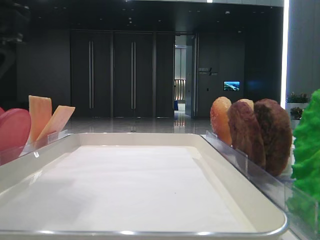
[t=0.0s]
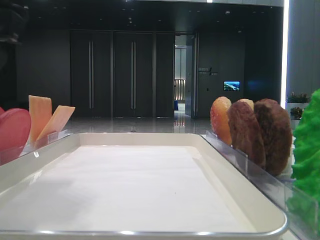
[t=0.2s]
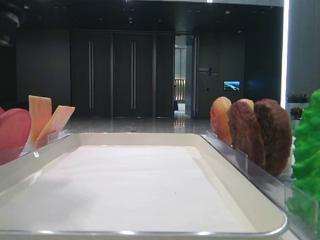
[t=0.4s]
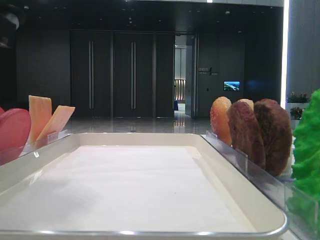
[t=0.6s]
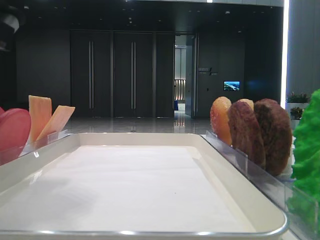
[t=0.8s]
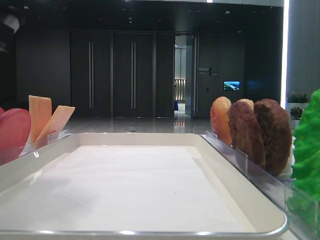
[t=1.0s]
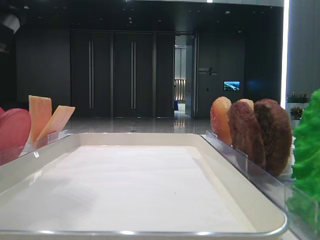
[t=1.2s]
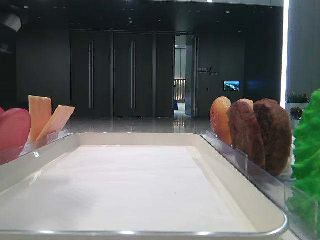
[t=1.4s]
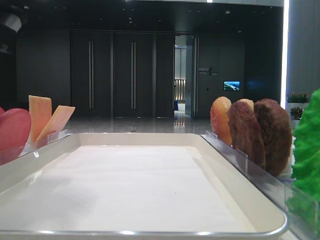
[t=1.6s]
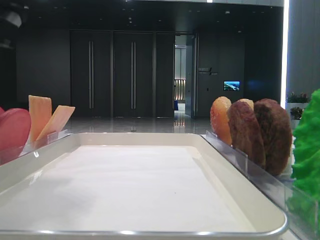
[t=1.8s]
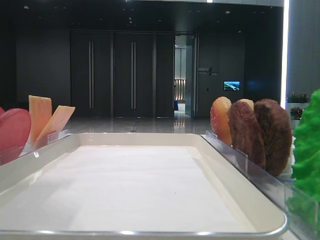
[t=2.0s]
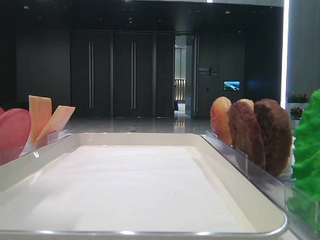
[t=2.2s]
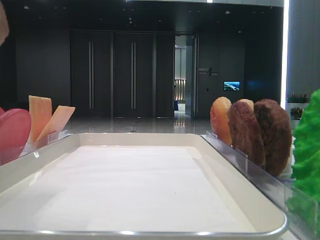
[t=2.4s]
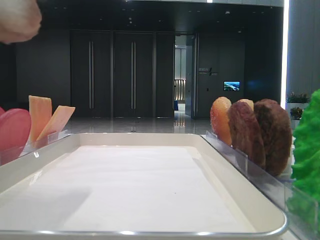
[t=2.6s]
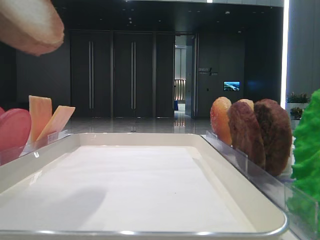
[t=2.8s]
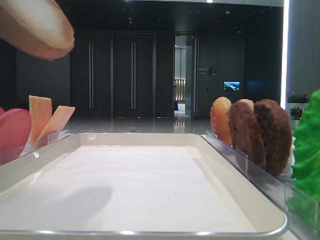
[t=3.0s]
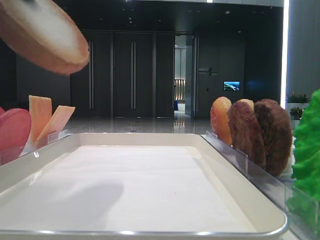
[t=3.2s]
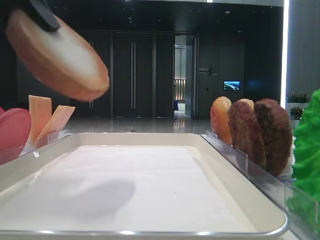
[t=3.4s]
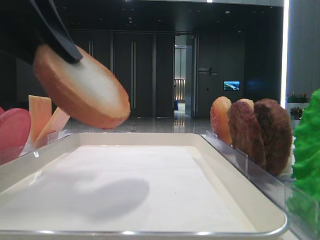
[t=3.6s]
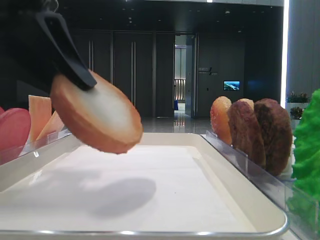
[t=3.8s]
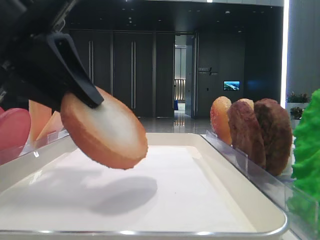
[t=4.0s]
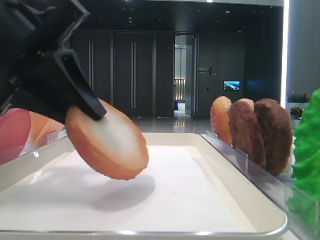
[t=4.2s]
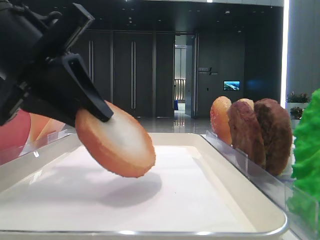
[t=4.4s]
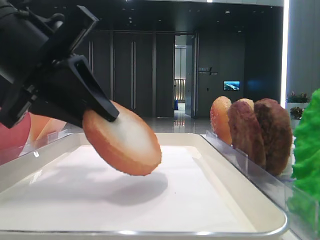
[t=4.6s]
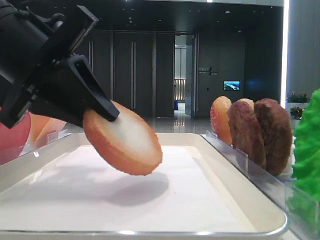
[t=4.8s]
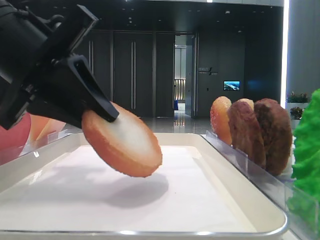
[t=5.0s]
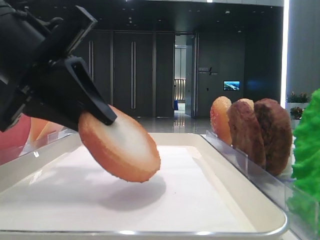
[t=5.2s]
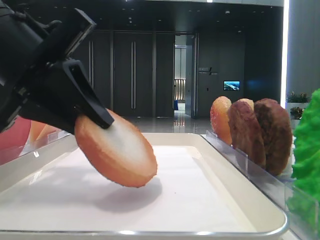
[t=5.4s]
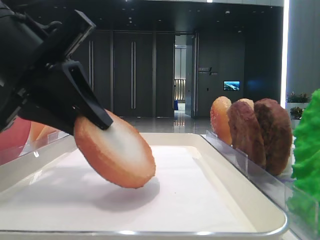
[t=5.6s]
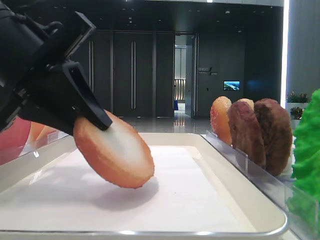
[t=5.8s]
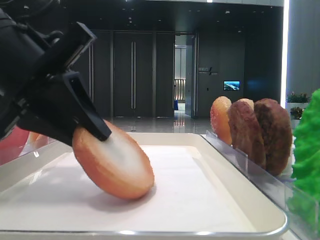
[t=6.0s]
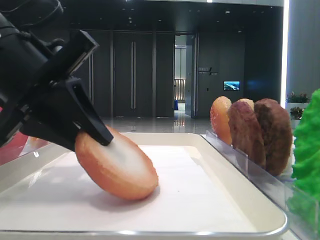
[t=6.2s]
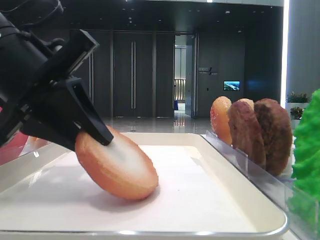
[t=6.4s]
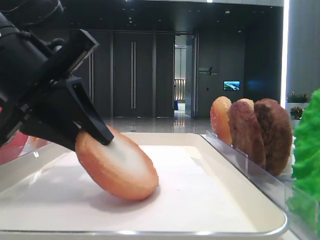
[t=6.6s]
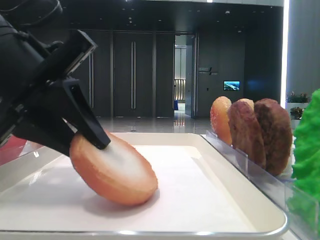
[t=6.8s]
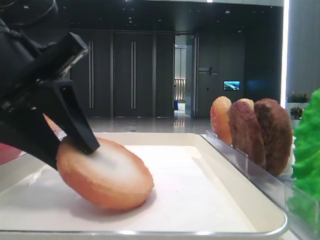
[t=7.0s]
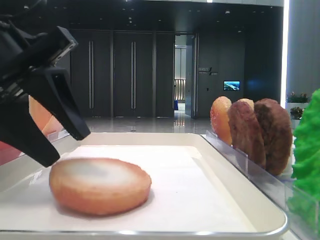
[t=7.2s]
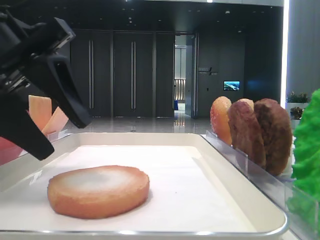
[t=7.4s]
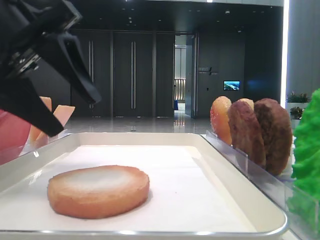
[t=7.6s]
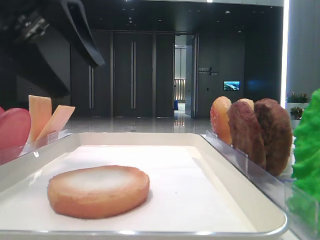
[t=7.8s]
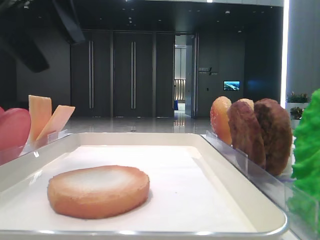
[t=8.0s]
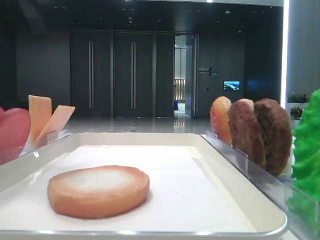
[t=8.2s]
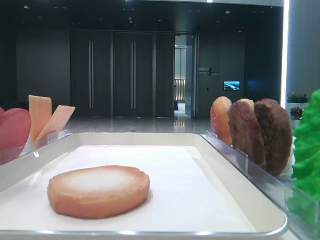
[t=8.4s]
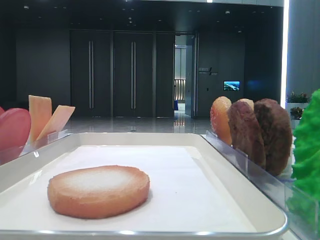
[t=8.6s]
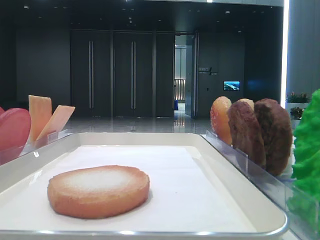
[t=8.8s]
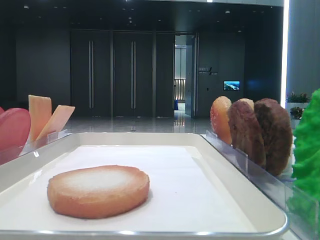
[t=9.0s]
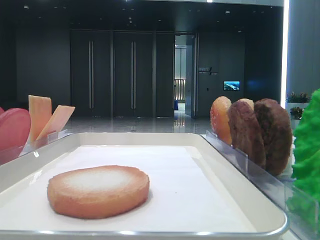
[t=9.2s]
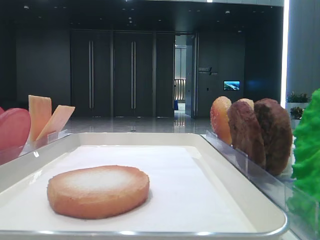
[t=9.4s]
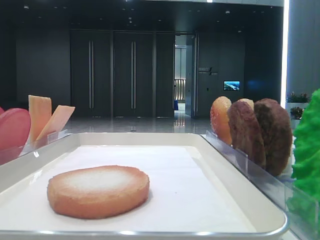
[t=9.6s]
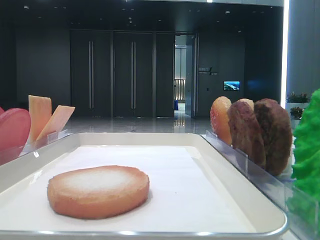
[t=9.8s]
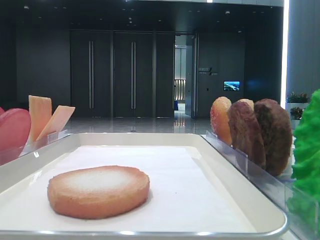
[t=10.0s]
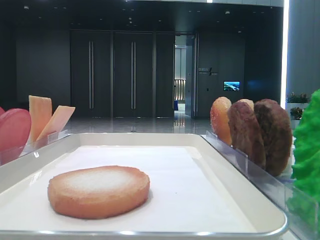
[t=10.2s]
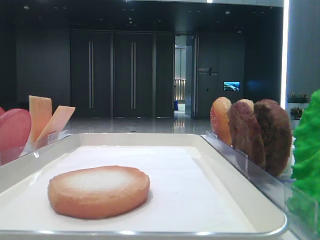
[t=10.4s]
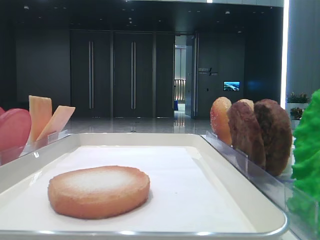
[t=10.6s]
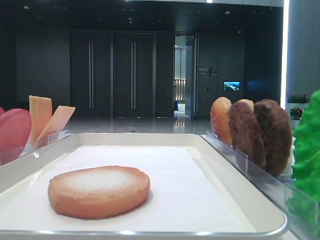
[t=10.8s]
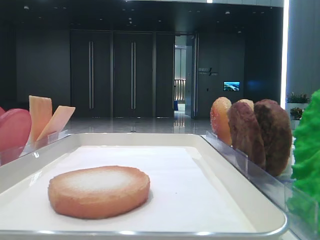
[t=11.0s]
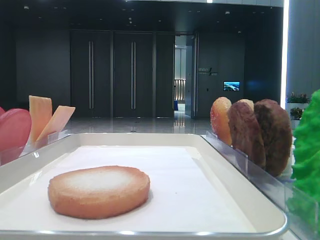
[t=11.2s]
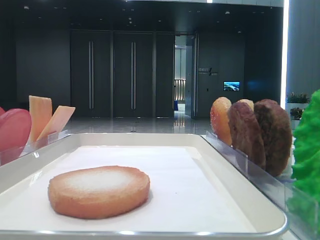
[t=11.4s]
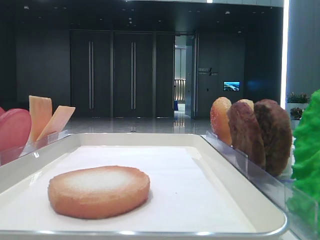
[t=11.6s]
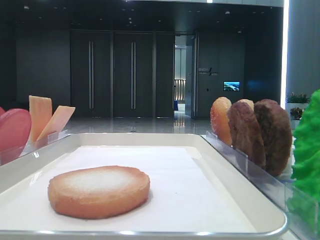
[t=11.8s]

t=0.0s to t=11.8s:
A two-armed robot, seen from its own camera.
Step, t=1.0s to t=7.2s: Place the bread on the tray with the left hand.
t=1.4s to t=3.0s: The left gripper travels upward by approximately 10 cm.
t=3.0s to t=4.4s: The left gripper goes roughly 15 cm downward and forward.
t=4.4s to t=6.0s: The grippers move only a little.
t=6.0s to t=7.4s: The left gripper opens up.
t=7.4s to t=8.8s: The left gripper is displaced to the left and upward by roughly 20 cm.
t=10.4s to t=11.8s: Both grippers stay put.

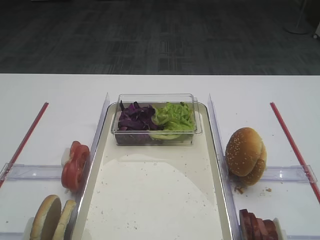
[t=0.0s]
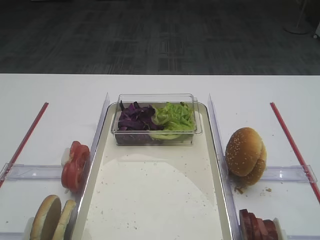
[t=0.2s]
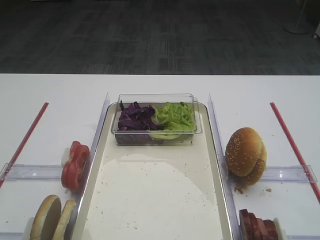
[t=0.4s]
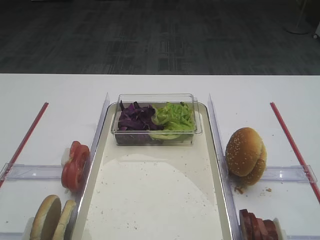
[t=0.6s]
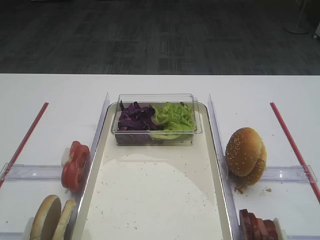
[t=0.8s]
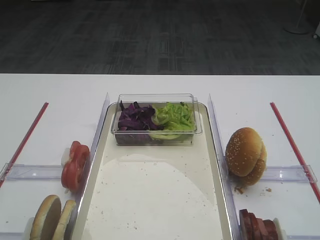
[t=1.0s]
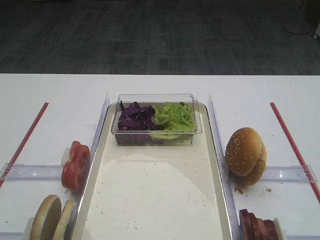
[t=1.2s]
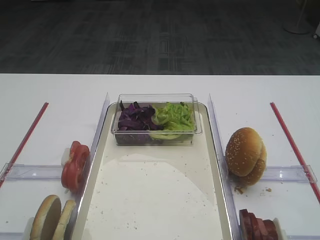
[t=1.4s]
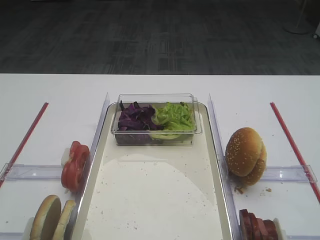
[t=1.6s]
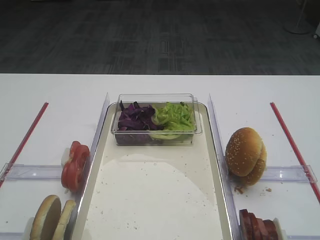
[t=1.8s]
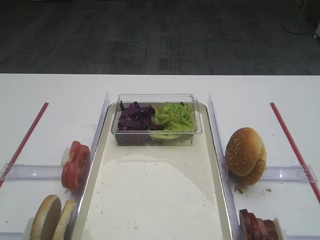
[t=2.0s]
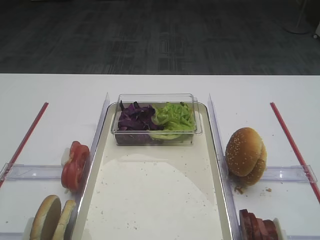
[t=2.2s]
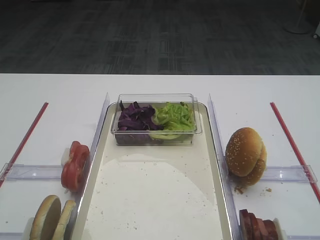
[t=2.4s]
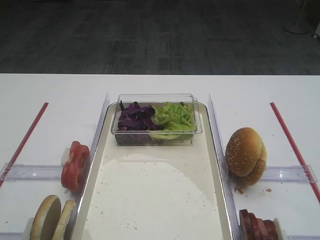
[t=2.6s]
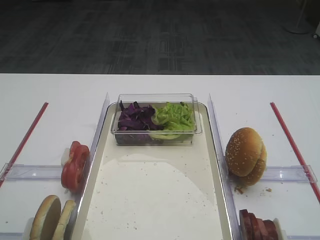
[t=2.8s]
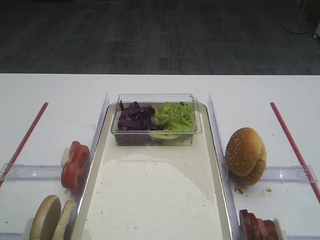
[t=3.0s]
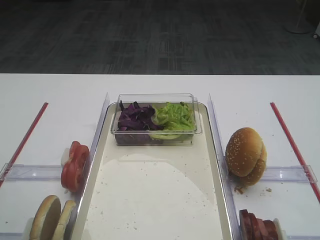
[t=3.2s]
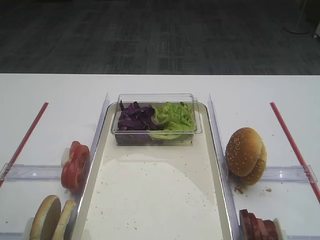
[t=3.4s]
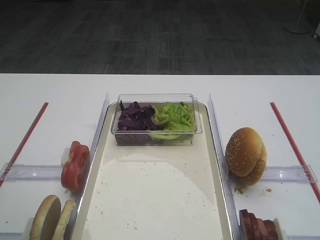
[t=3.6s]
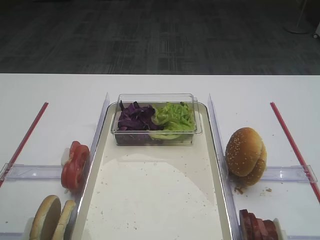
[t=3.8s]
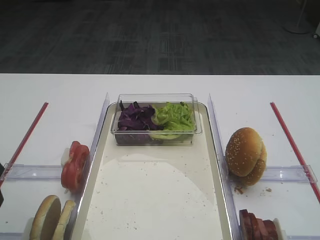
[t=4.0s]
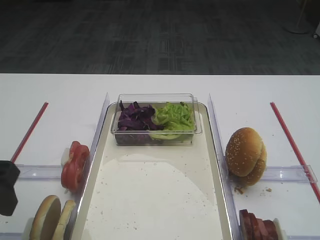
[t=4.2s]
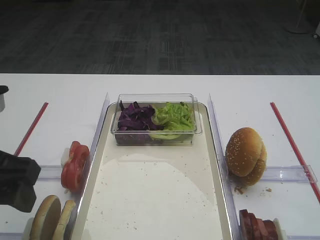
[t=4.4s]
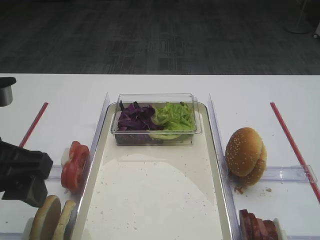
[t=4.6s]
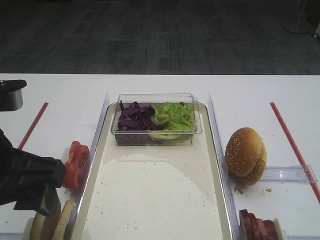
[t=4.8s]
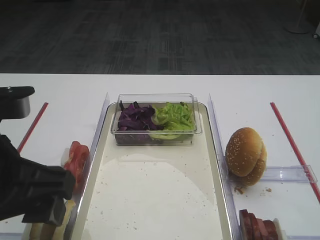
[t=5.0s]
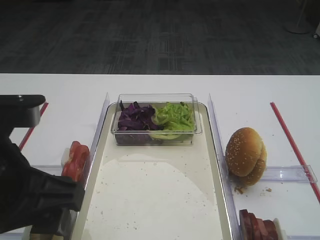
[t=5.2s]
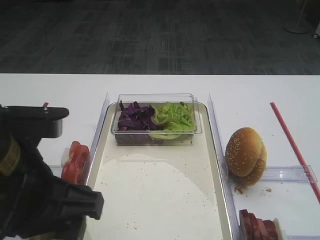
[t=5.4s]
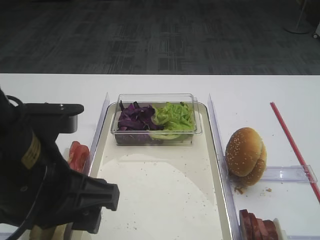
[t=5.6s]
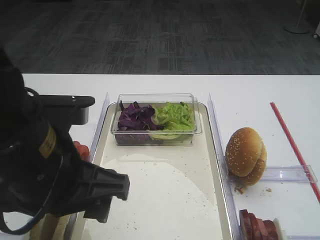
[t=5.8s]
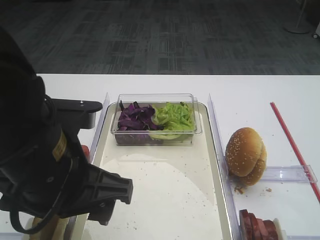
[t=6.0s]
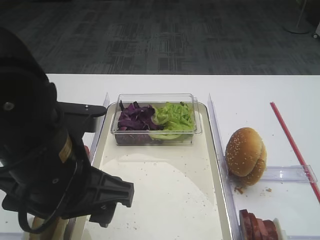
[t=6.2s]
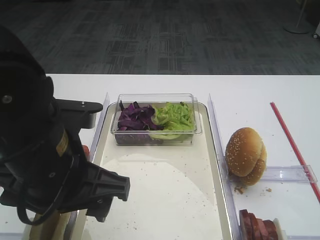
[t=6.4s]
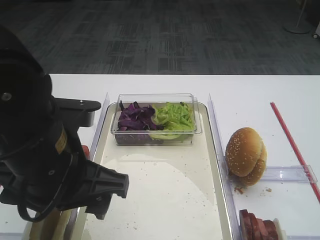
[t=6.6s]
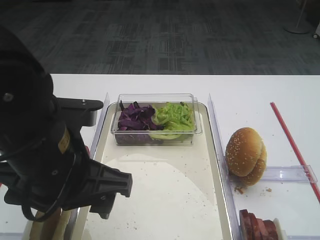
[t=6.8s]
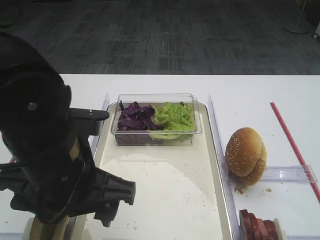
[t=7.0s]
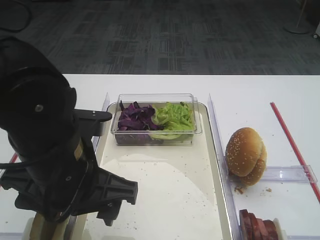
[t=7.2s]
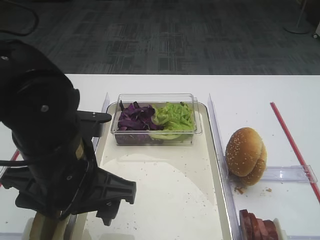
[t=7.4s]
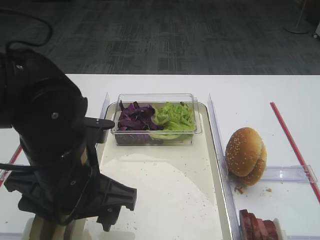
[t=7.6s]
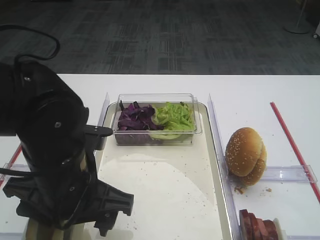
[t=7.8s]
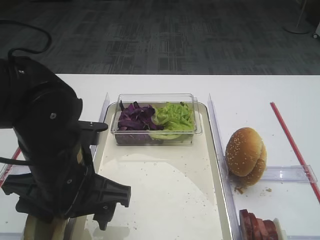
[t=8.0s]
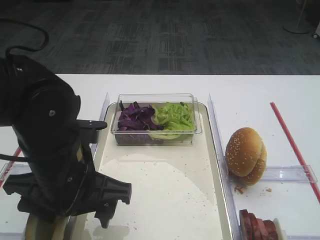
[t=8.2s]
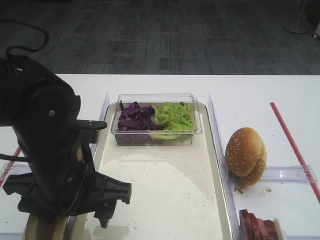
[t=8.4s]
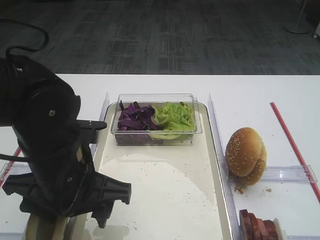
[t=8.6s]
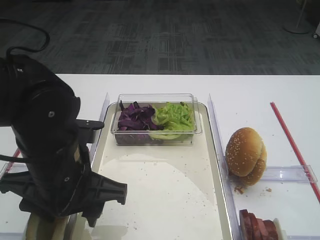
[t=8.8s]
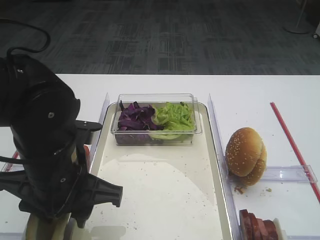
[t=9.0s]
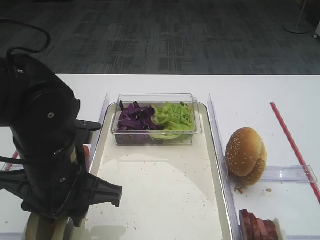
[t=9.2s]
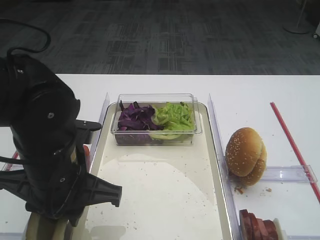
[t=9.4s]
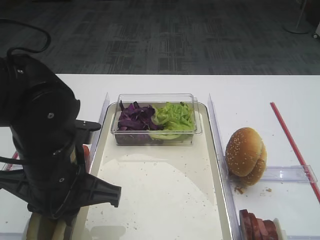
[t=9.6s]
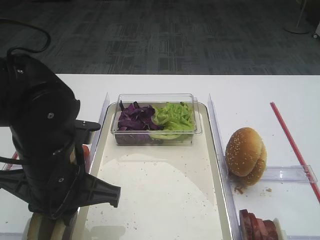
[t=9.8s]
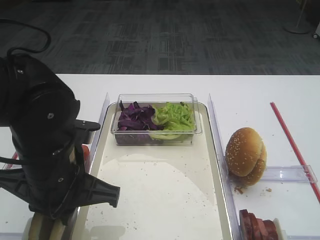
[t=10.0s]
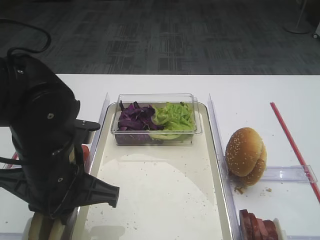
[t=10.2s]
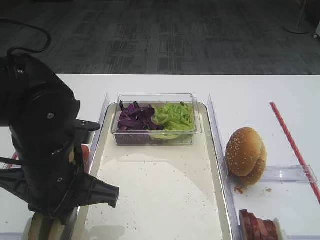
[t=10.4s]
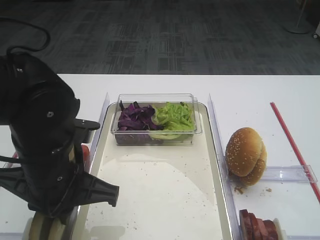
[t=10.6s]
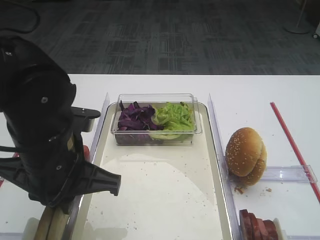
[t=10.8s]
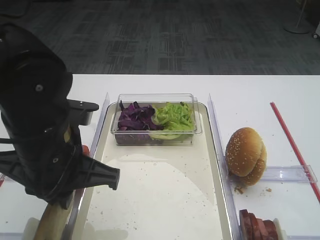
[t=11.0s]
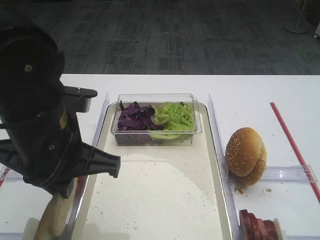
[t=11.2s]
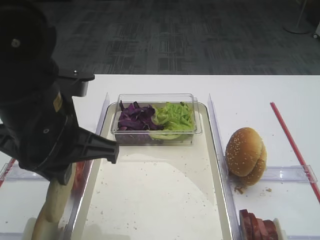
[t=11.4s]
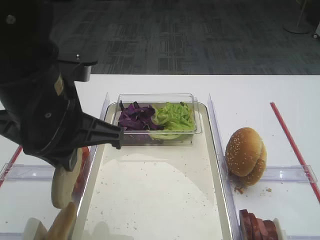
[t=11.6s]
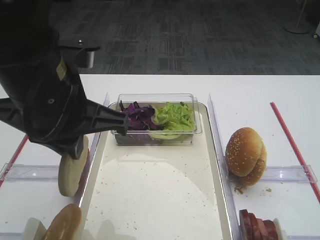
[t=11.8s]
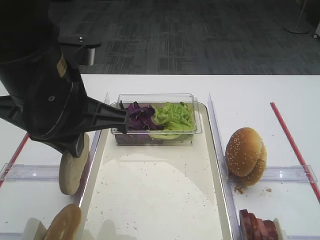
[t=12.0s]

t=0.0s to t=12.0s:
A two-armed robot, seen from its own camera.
Step, t=0.0s to t=11.0s: Pick up the bread slice with the left gripper.
t=3.0s to t=4.4s: The left gripper goes roughly 10 cm to the right.
t=4.4s to t=6.0s: The left gripper is displaced to the right by some 10 cm.
t=6.0s to t=7.6s: The grippers stay close to where they were, moving slightly.
t=7.6s to t=9.0s: The left gripper closes its fingers.
t=9.0s to t=10.4s: The left gripper closes its fingers.
t=10.4s to t=12.0s: The left gripper is displaced upward by roughly 10 cm.
